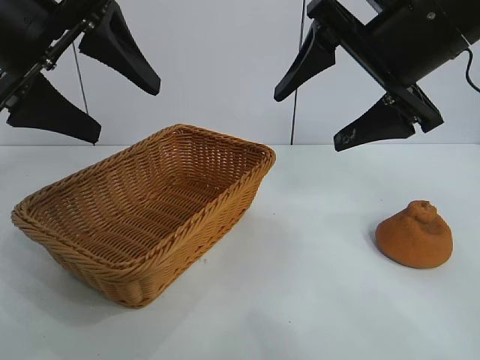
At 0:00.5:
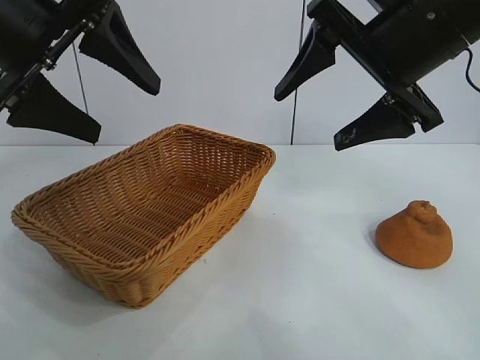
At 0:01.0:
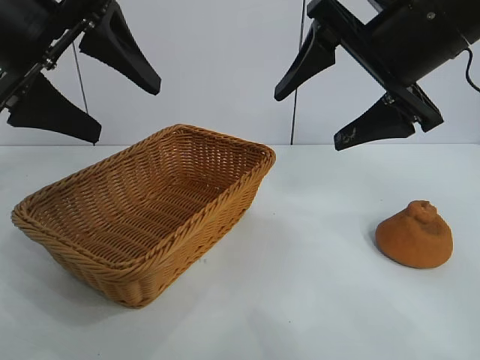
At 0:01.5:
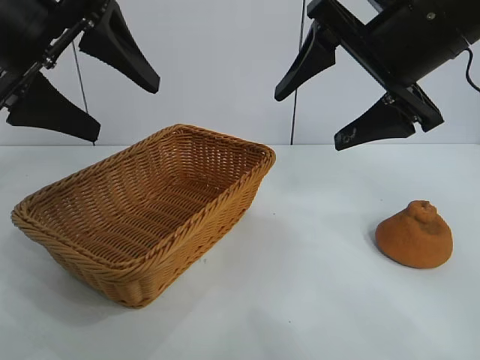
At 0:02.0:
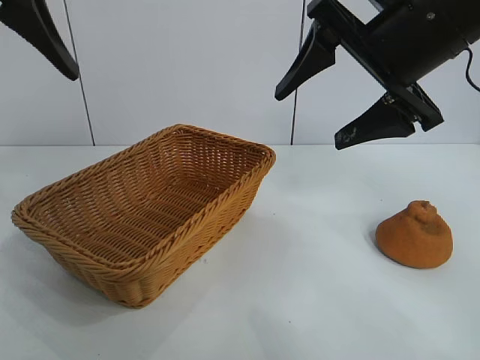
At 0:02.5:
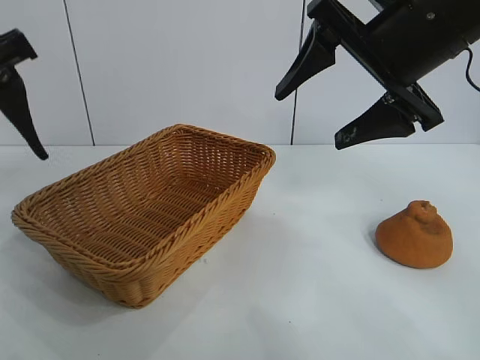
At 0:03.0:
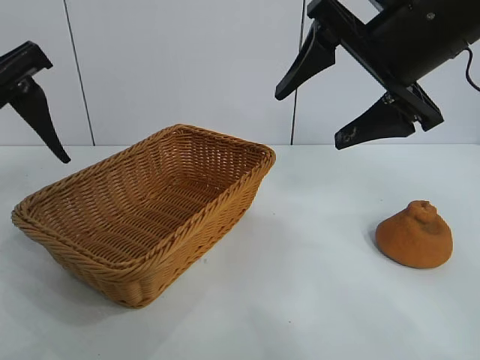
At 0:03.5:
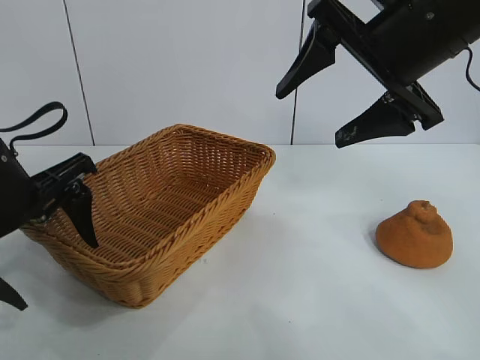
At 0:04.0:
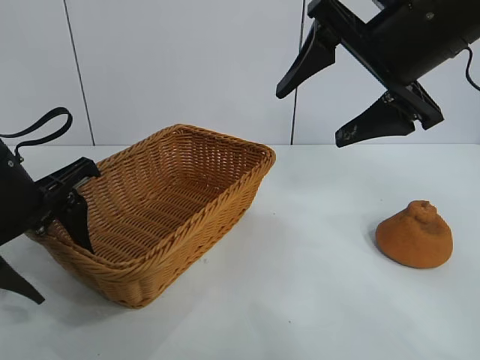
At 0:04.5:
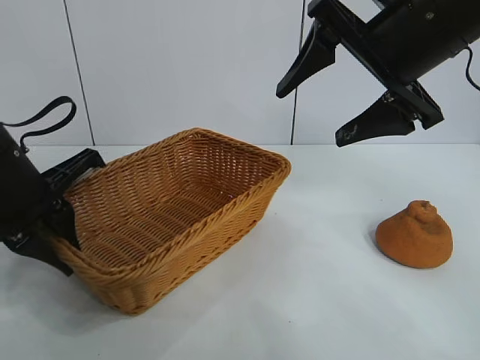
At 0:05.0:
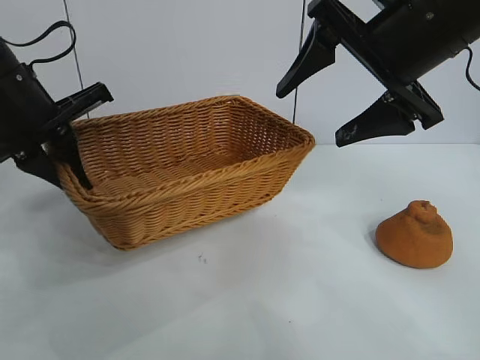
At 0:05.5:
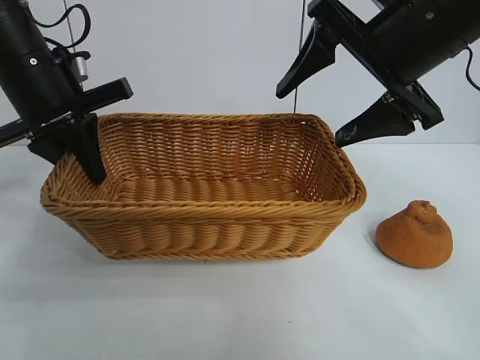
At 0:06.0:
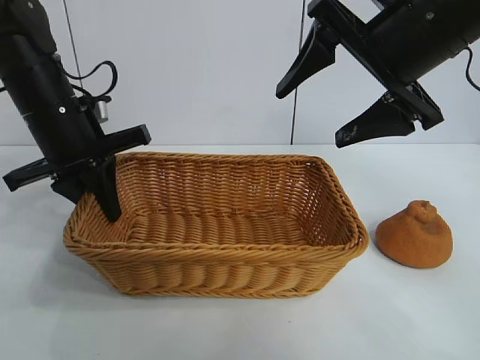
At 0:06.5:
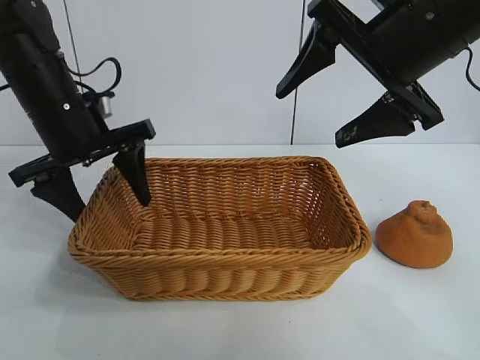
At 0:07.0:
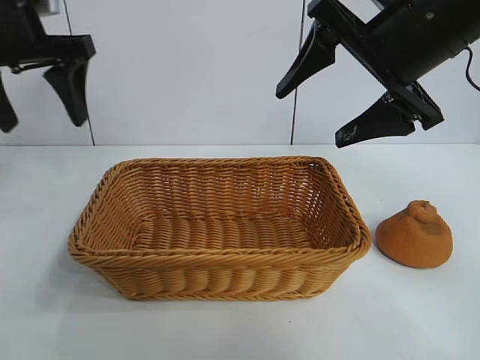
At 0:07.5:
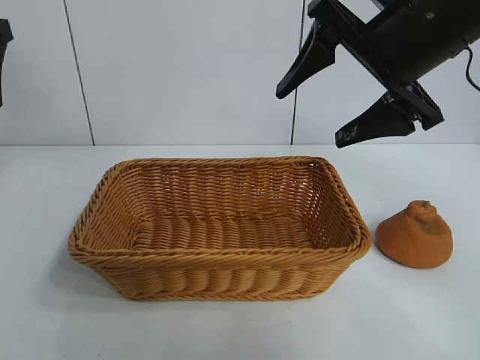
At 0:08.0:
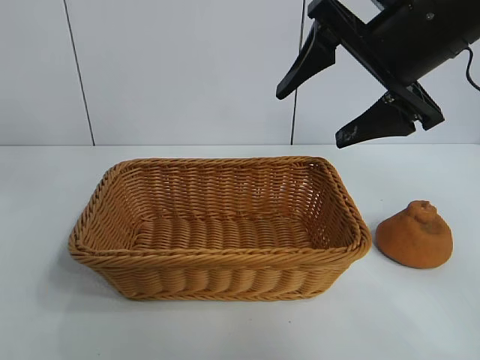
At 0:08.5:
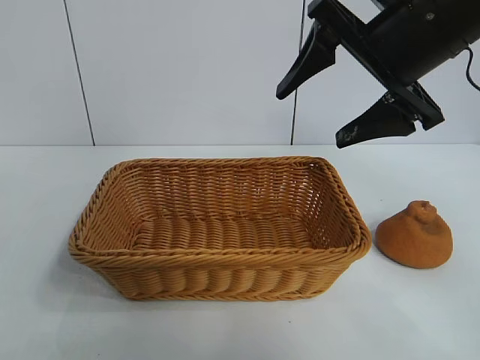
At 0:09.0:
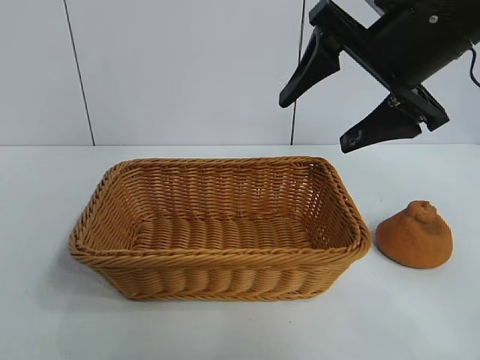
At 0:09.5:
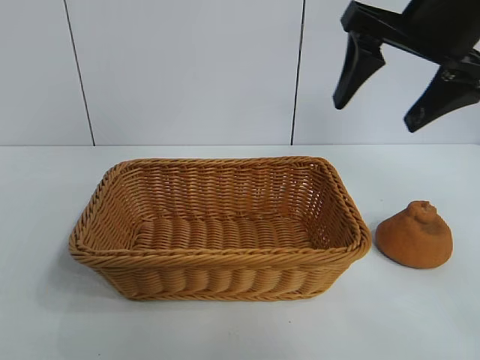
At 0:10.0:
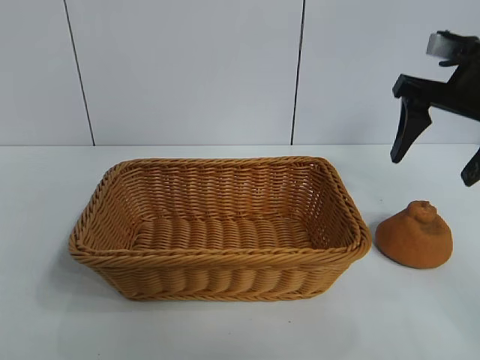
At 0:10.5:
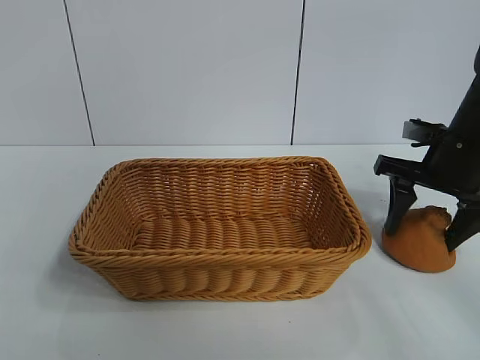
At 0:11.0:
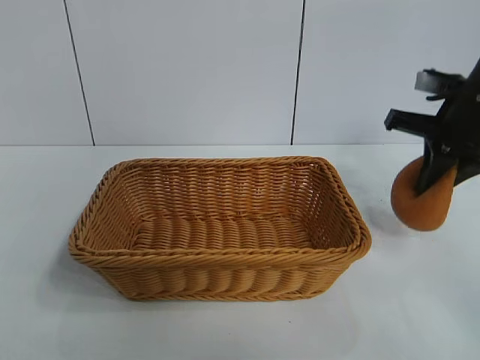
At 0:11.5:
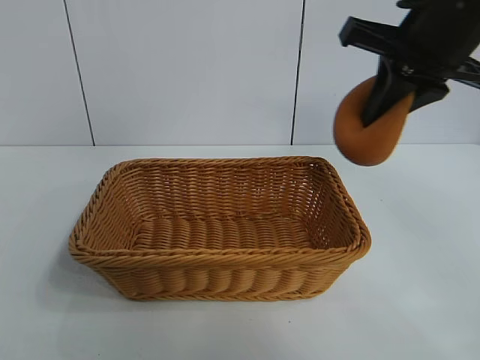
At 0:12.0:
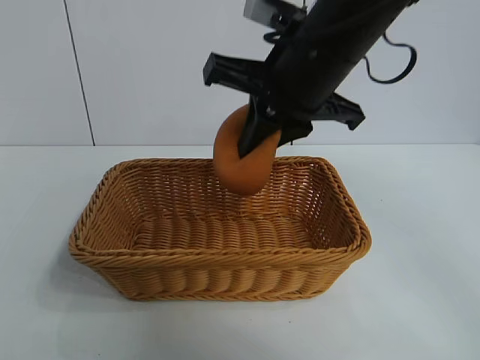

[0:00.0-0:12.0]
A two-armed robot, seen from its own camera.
Task of the whole recording: pick up the orange and put it into the basket.
Step, 0:01.5 to 0:04.0: Grasp the basket with left gripper.
Step, 0:04.5 to 0:06.0: Place the basket in the center of view with left gripper.
Step, 0:07.0 to 0:10.5: Grasp the orange with right gripper.

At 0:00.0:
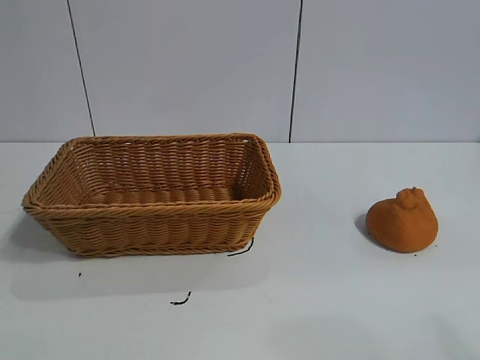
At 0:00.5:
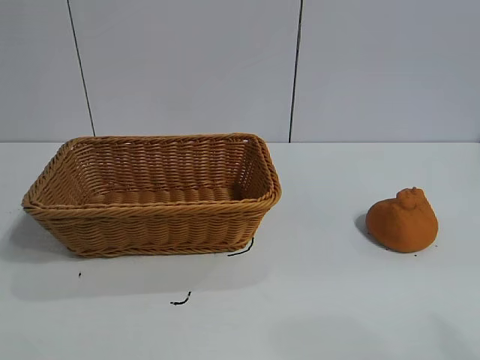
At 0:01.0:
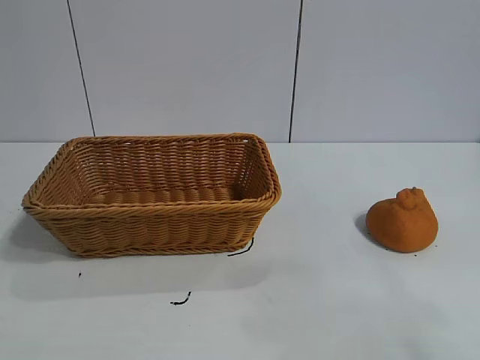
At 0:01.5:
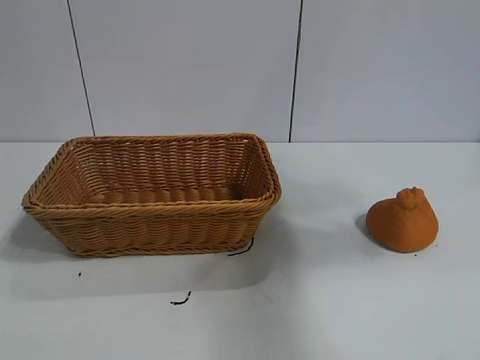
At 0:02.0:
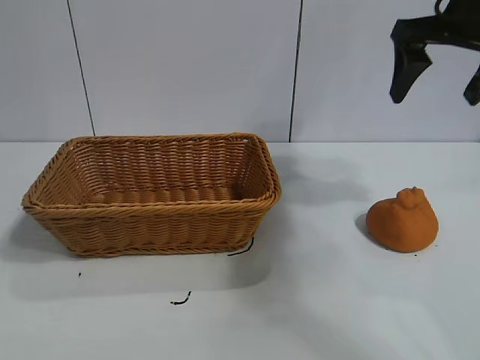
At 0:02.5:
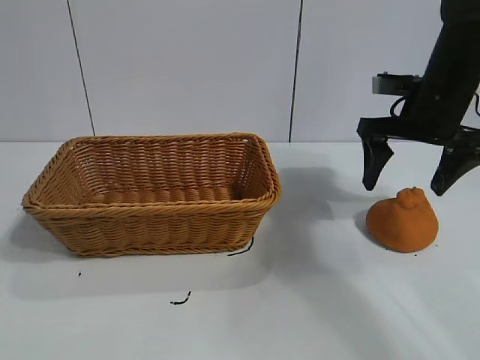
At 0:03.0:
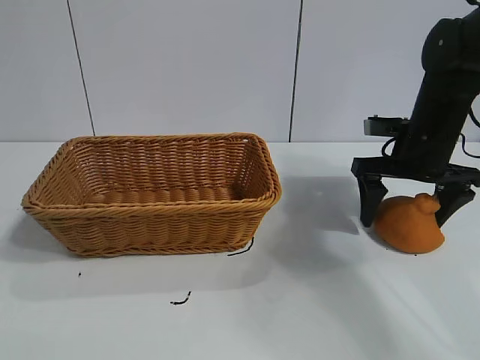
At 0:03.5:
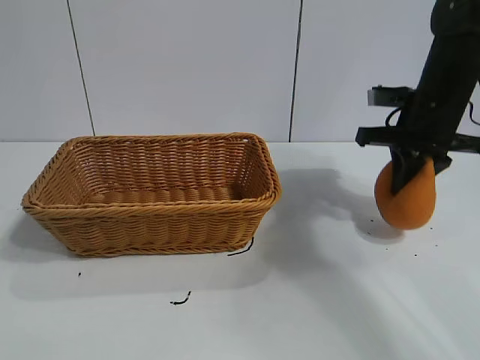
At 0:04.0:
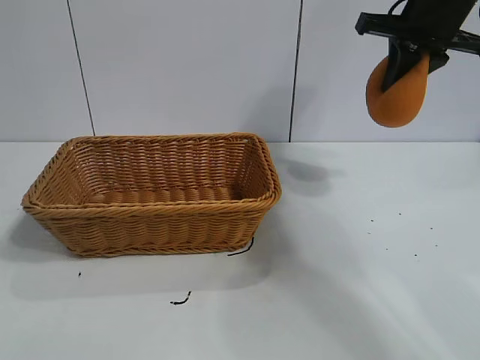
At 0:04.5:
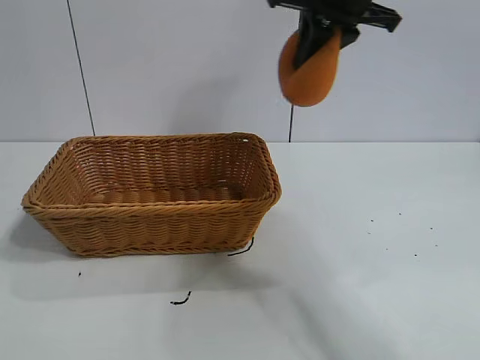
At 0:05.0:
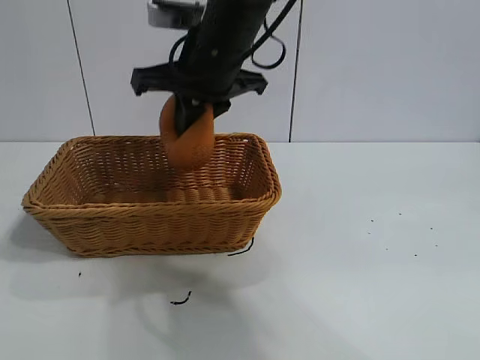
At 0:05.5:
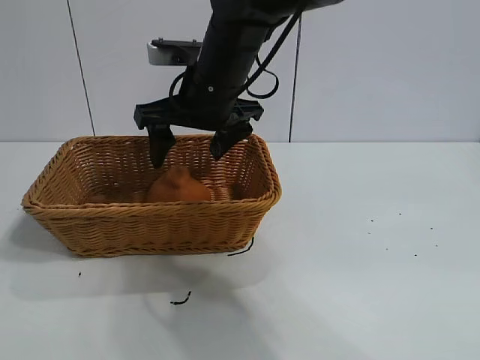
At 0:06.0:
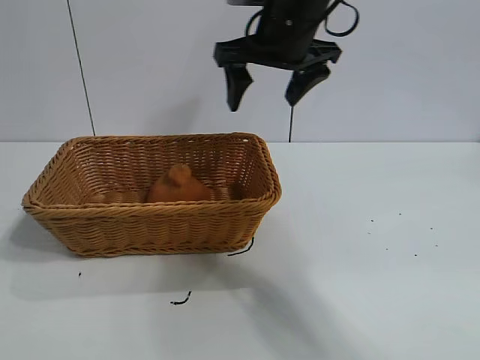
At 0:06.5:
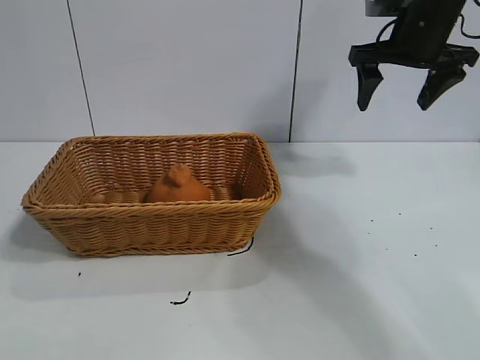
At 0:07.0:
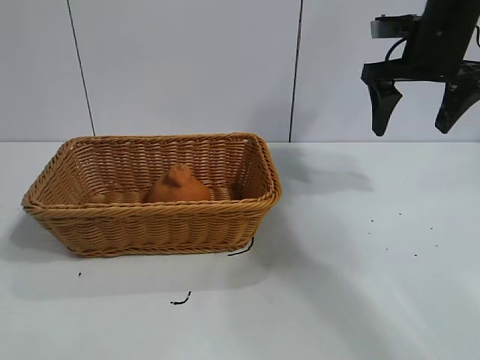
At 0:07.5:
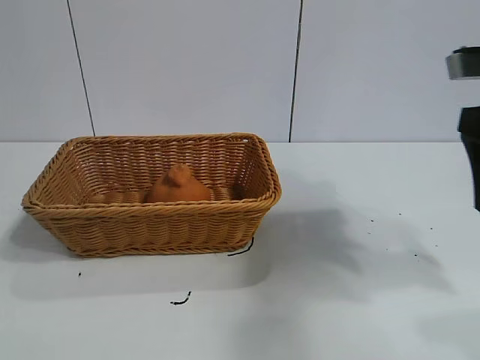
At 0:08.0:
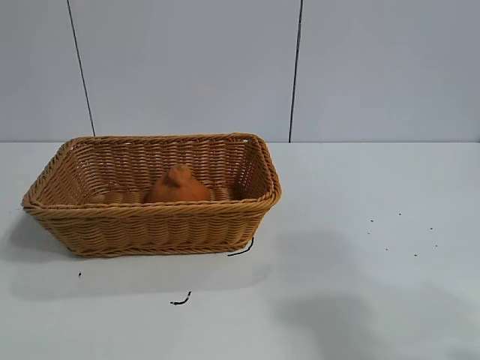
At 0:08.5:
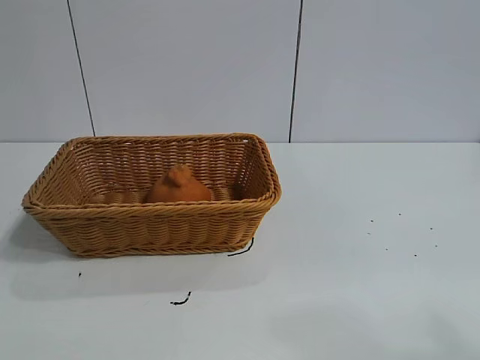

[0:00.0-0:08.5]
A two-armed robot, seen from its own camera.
Task of the whole recording: pick up the orange and put it into the basket.
Step, 0:01.0 to 0:03.0: Grasp the orange with right gripper.
Step, 0:03.5 to 0:05.0: Place the orange in the basket with right gripper.
